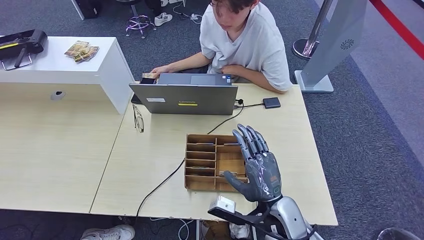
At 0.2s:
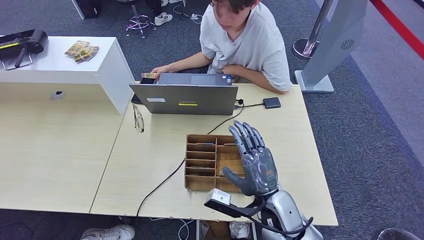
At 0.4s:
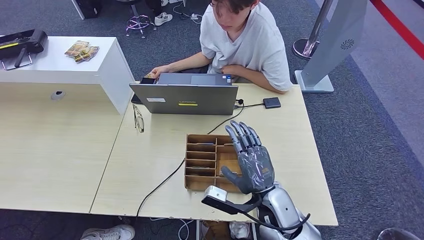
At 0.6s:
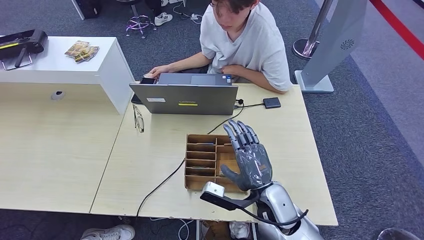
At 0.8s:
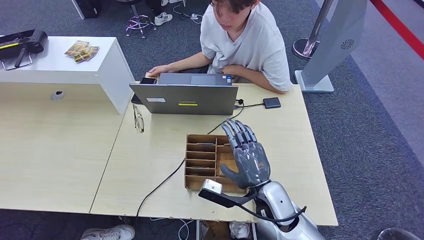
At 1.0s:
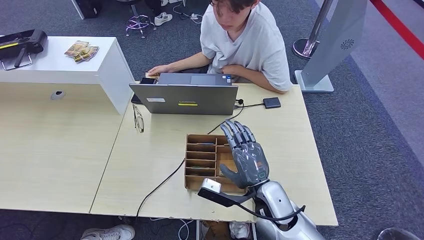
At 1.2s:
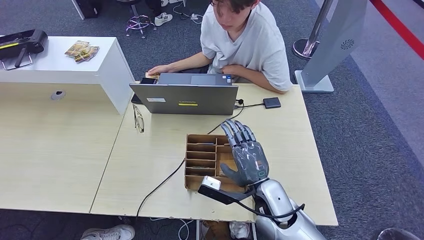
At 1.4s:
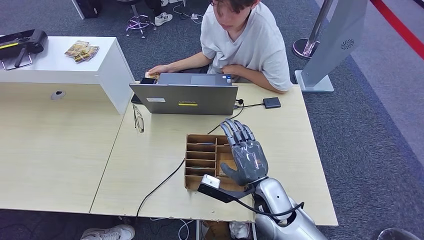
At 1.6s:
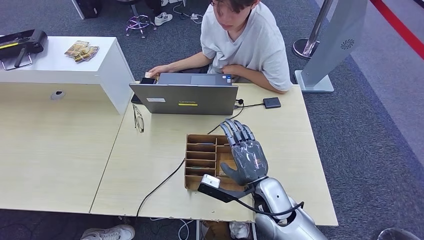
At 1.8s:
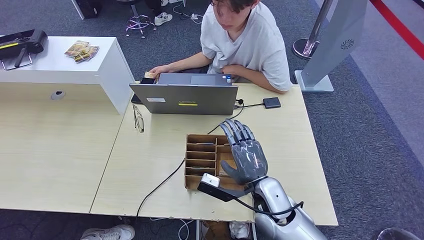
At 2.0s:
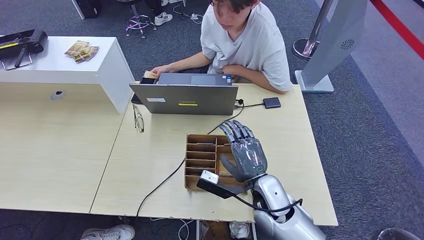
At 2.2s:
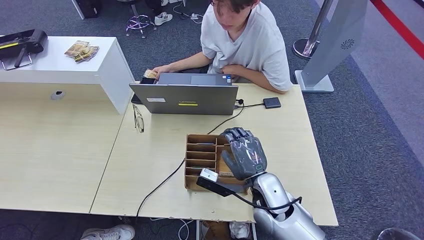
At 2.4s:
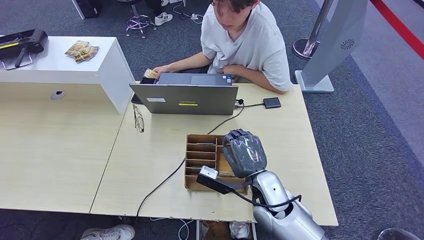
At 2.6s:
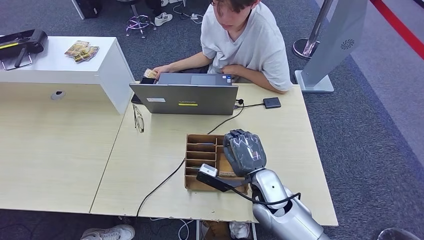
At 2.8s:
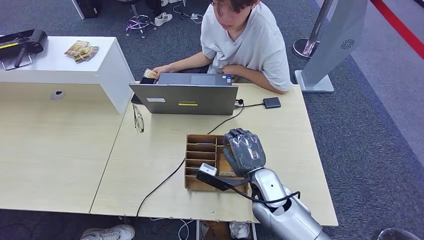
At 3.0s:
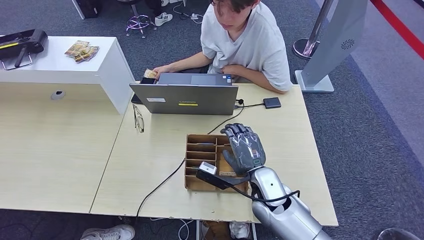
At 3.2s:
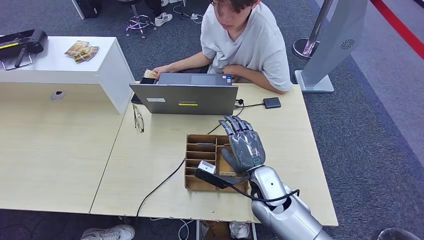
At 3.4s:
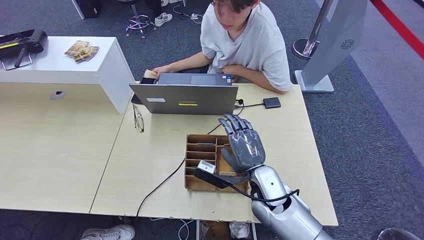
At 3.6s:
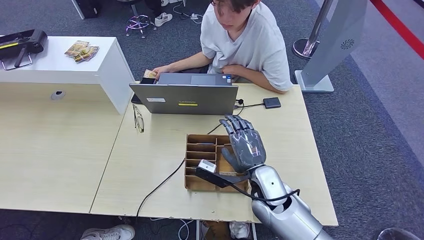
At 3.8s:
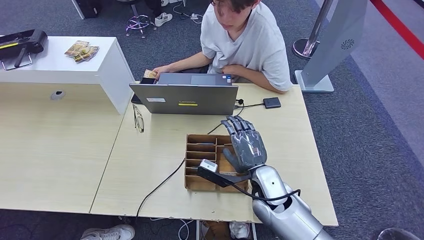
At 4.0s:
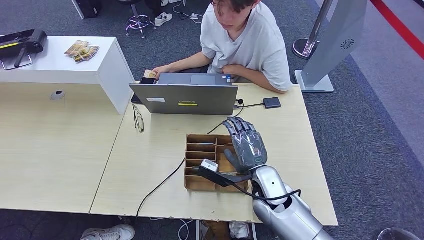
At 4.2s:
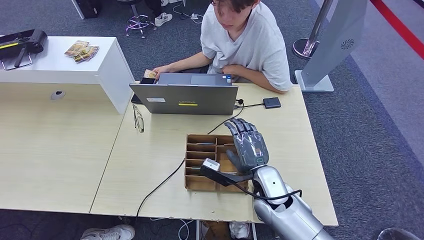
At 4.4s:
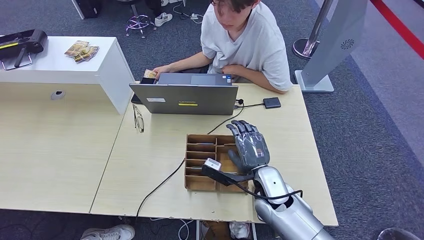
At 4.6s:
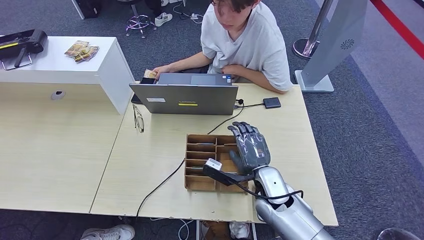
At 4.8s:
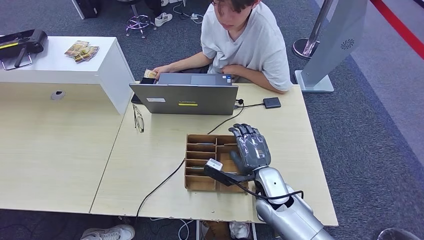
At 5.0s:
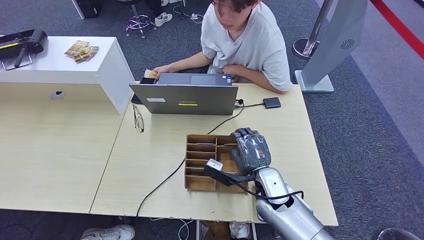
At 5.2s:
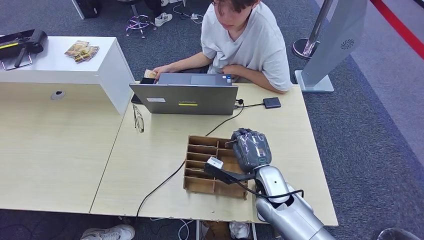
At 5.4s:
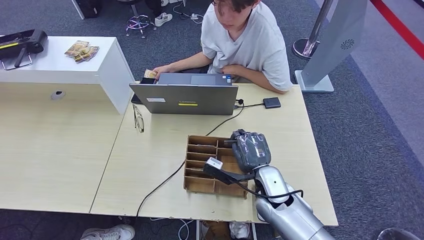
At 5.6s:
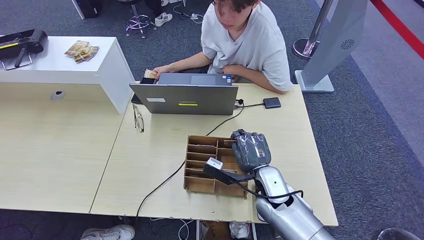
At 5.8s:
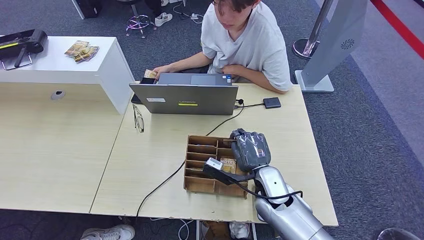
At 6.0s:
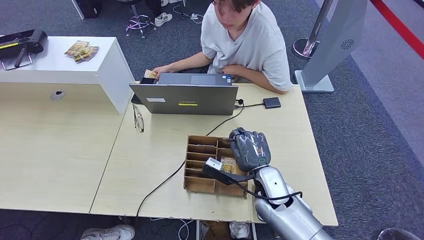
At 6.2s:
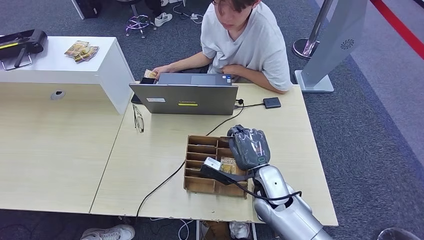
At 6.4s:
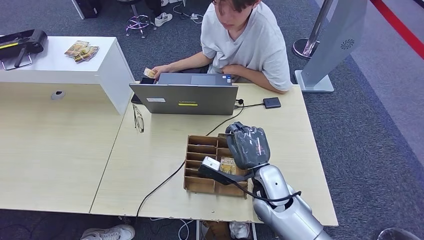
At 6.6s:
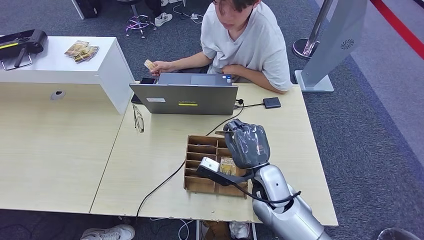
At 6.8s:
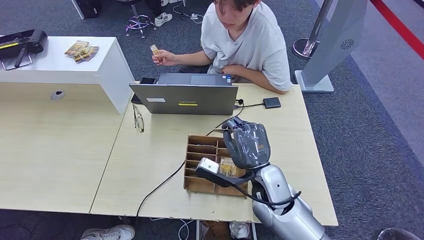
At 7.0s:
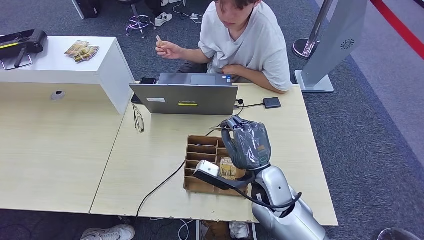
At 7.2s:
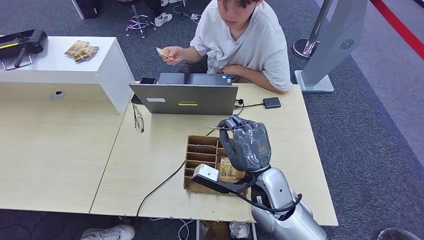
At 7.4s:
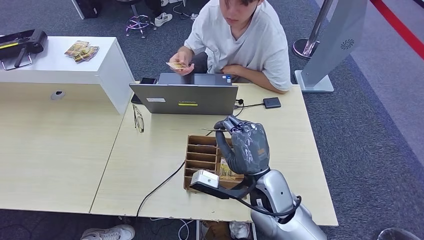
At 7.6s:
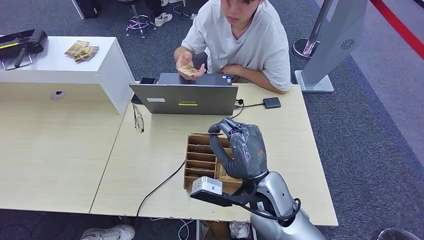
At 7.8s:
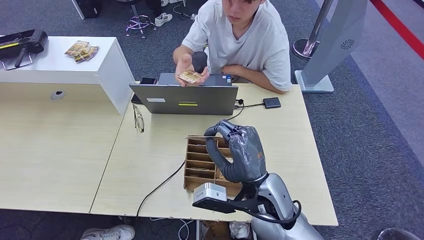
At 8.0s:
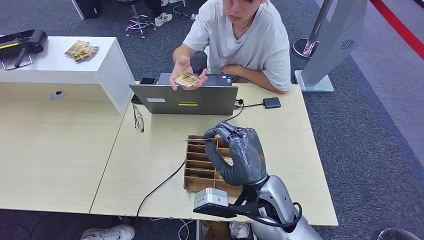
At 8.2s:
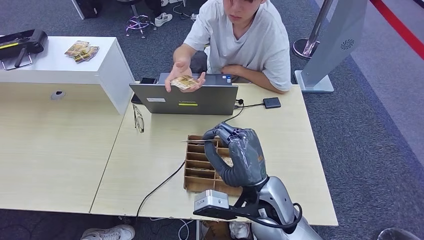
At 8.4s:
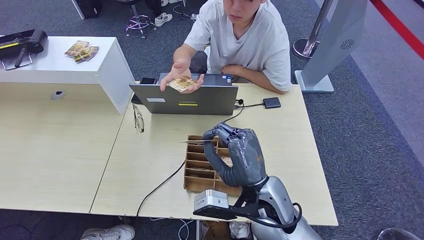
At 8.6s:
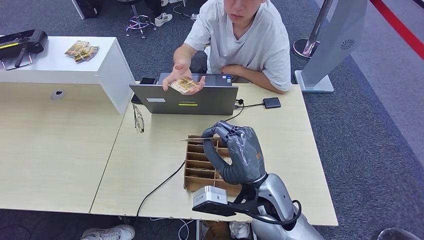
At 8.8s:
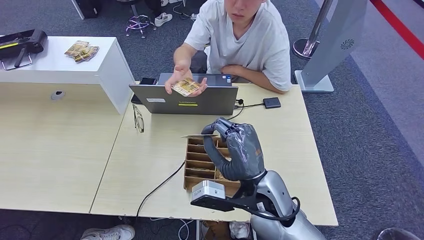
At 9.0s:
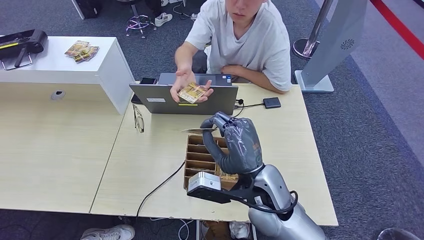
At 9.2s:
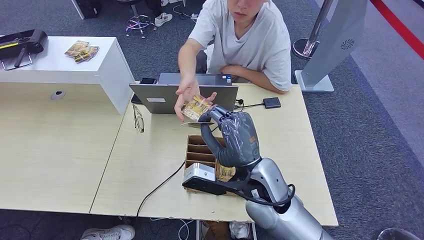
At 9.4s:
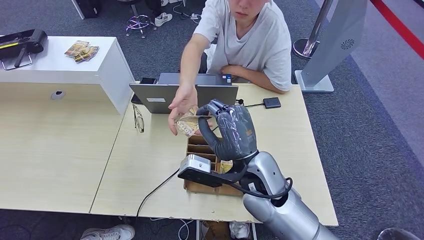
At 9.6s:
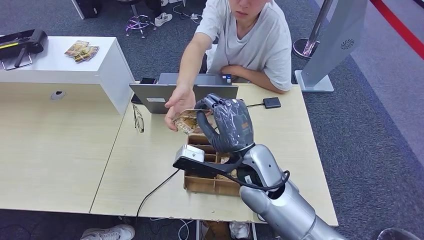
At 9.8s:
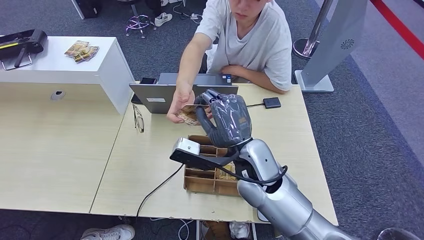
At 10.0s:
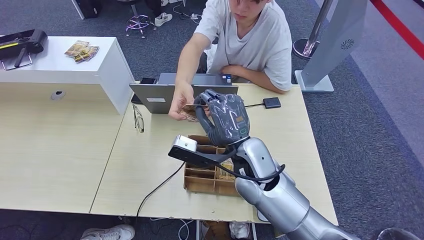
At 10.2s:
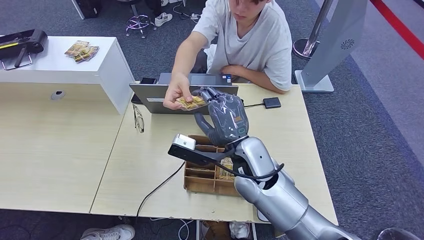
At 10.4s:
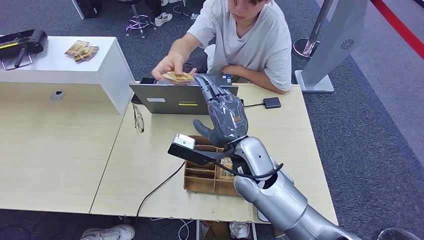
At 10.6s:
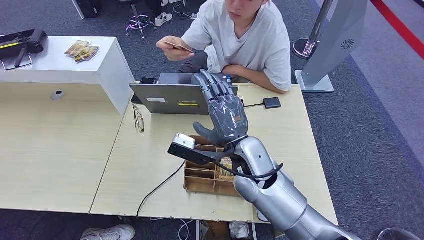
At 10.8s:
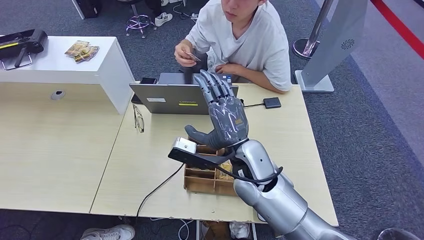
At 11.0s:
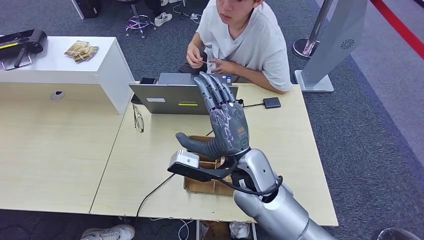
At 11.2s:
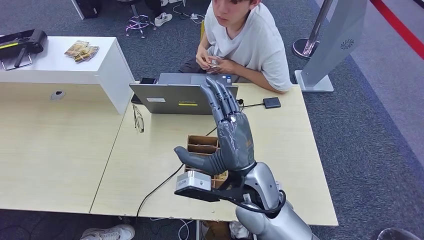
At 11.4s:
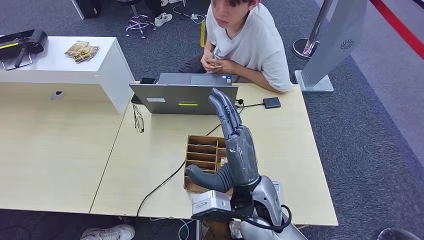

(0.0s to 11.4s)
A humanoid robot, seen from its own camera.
Step, 4.4s - 7.8s: Pick up the room key from the key card box.
Step, 8.0s - 11.2s: Hand the room key to the person.
0.0s - 1.4s: The hands stay close to where they were, moving slightly.
1.4s - 2.8s: There are only small adjustments of the hands.
2.8s - 4.2s: The two hands keep their place.
4.2s - 5.6s: The hands make only small movements.
5.6s - 7.2s: The right hand travels upward by roughly 5 cm.
8.6s - 10.0s: The right hand is displaced forward by about 5 cm.
10.0s - 11.4s: The right hand travels backward by approximately 10 cm.
